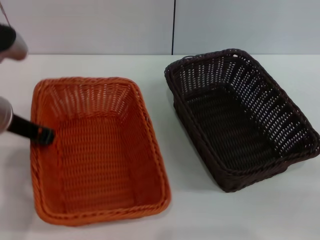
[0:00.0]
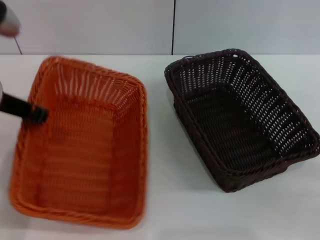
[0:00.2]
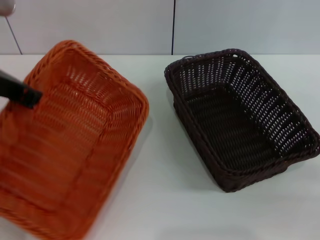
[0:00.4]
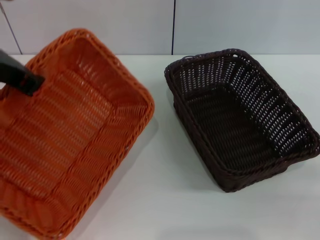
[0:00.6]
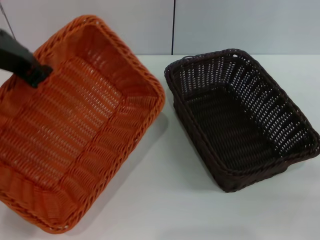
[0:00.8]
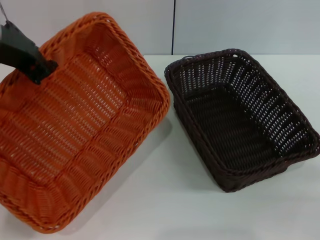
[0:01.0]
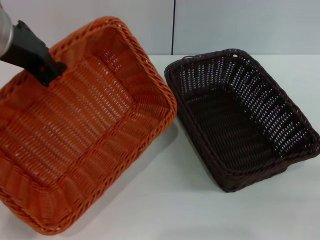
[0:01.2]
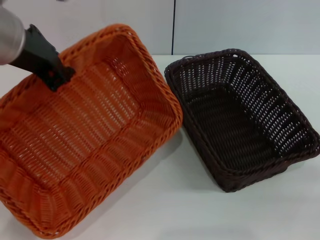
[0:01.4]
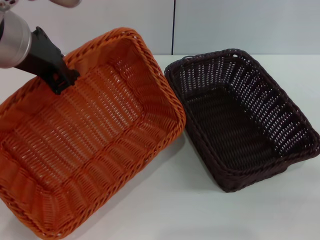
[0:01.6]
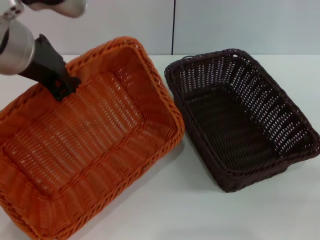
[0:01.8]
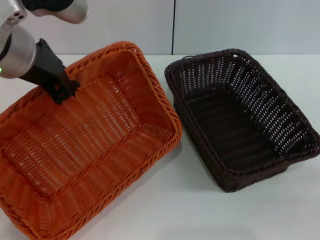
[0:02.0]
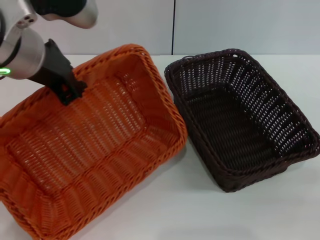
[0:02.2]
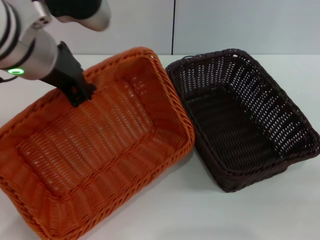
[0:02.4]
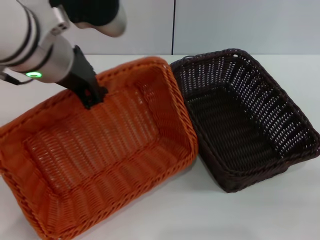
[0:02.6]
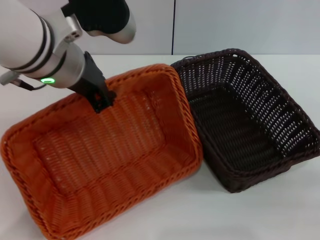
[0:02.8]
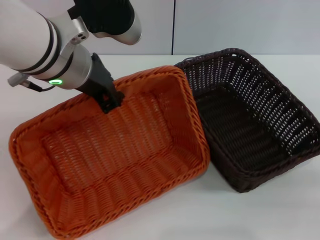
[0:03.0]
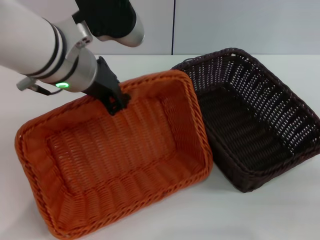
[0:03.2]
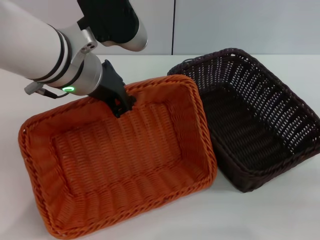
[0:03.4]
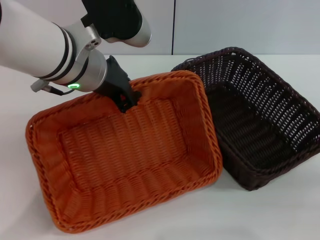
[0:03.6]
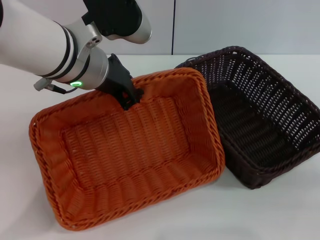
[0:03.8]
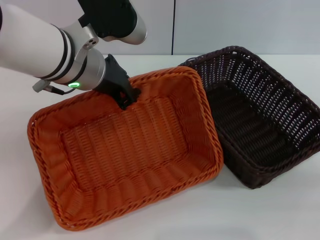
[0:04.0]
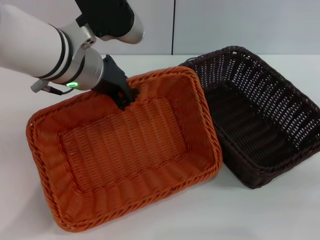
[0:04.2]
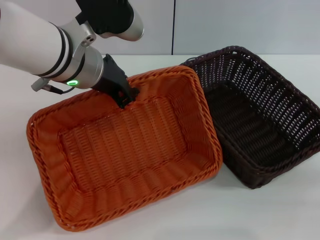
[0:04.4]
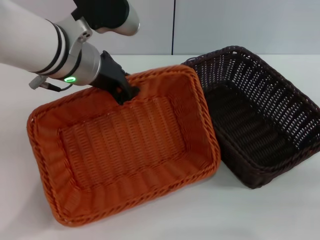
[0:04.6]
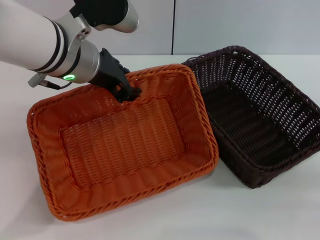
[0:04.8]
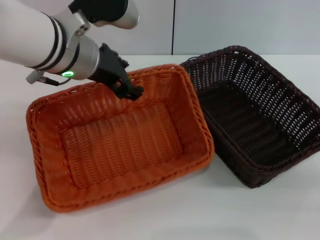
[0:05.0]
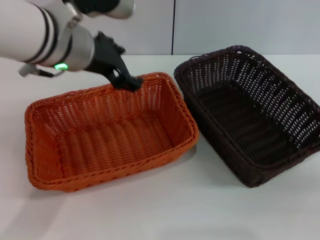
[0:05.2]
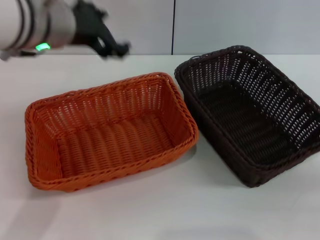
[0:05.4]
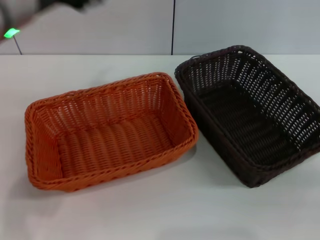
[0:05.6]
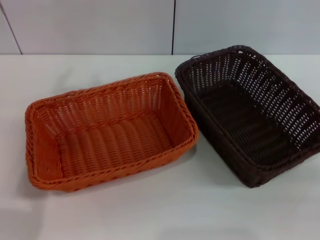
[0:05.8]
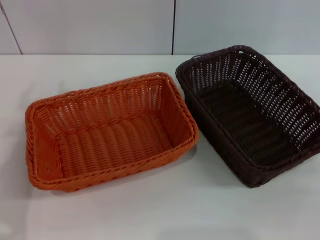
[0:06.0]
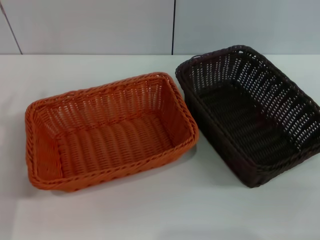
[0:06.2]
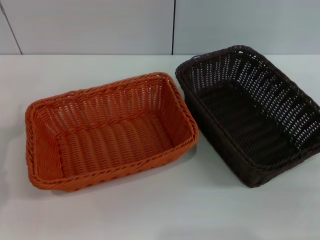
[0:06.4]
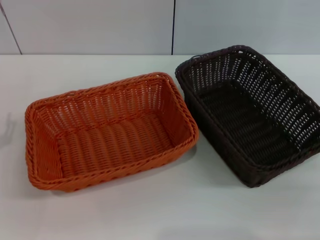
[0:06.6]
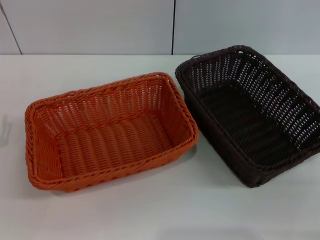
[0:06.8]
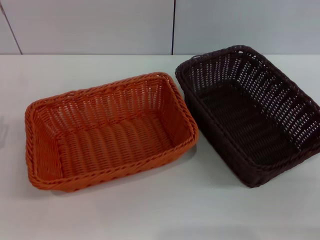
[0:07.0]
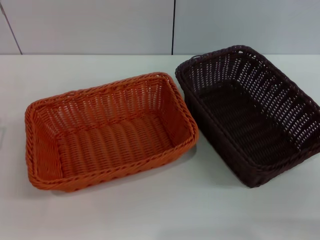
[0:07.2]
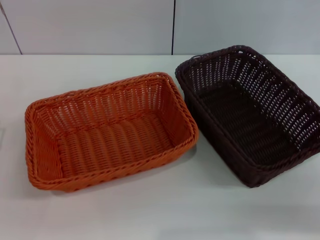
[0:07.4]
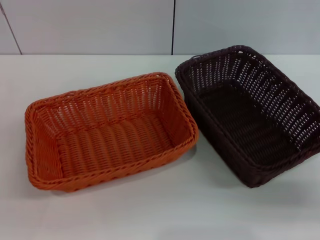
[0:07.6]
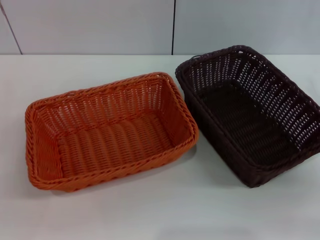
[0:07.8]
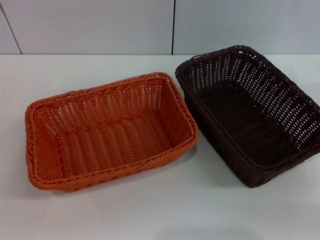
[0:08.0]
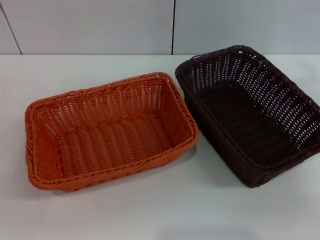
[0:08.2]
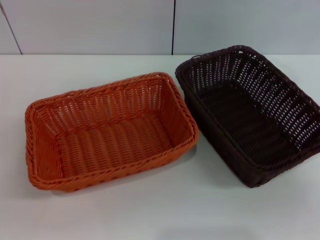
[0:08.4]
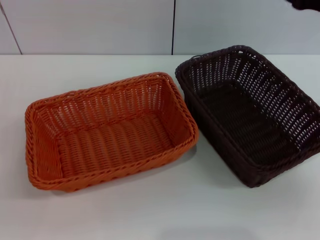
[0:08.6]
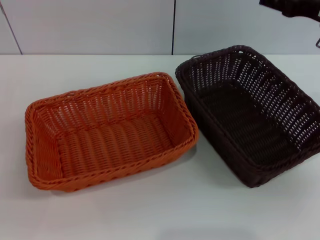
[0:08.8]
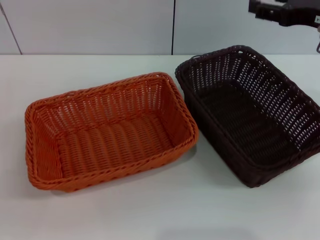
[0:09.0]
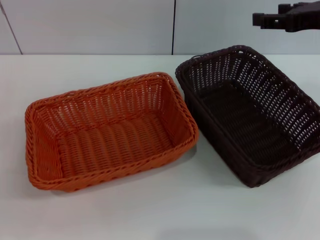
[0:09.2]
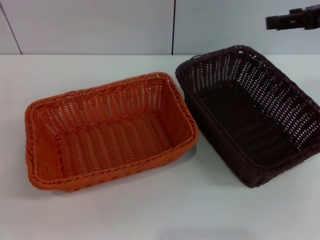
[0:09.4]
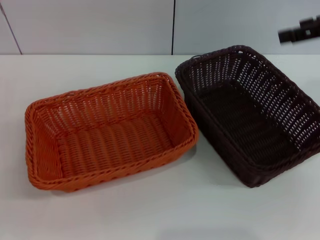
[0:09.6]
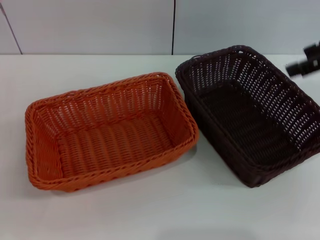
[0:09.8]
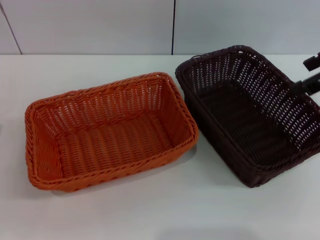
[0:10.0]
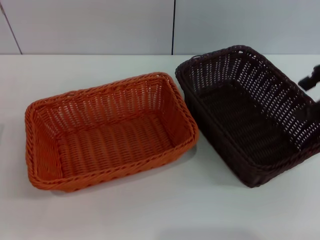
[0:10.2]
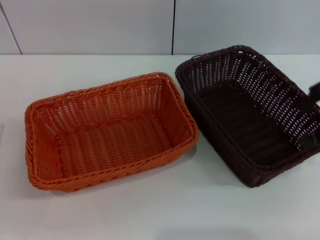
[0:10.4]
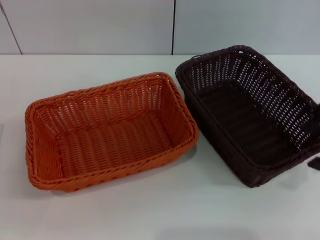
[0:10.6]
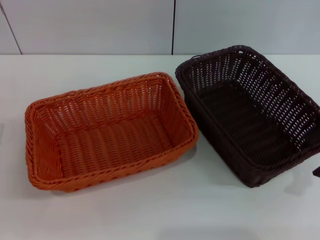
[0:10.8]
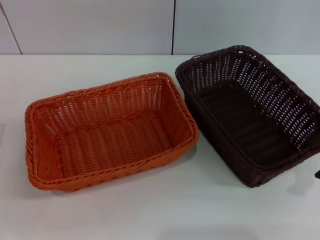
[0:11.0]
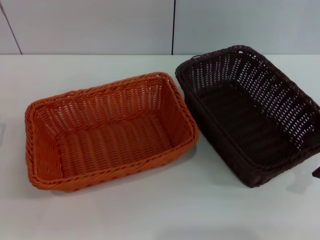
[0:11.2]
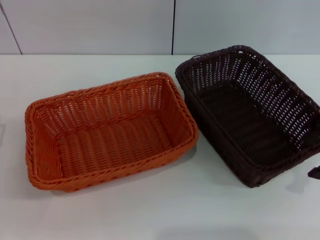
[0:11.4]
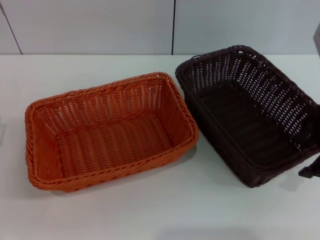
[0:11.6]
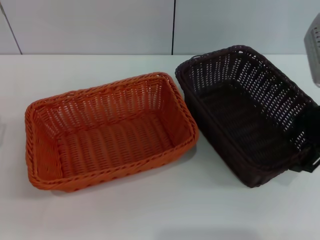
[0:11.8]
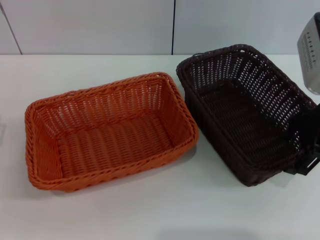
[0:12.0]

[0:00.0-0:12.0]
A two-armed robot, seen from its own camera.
Step, 0:00.6 to 0:05.0: Place the light basket in the center of view with the left gripper.
0:00.0 to 0:01.6: The left gripper goes some 10 cm upward and to the right.
0:01.6 to 0:03.0: The left gripper shifts by about 5 cm.
0:03.0 to 0:04.4: The grippers move only a little.
0:04.4 to 0:06.0: The left gripper shifts approximately 15 cm to the left and backward, and opens its fingers.
0:06.0 to 0:07.6: The right gripper is displaced forward by some 10 cm.
0:07.6 to 0:09.0: The right gripper heads upward, forward and to the left, covering about 15 cm.
0:09.0 to 0:10.4: The right gripper moves upward, some 5 cm.
0:10.4 to 0:12.0: The right gripper heads downward, covering some 5 cm.

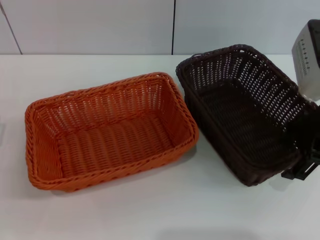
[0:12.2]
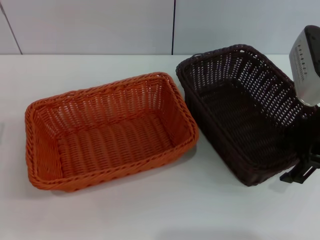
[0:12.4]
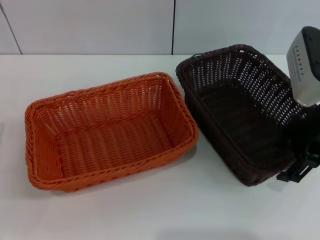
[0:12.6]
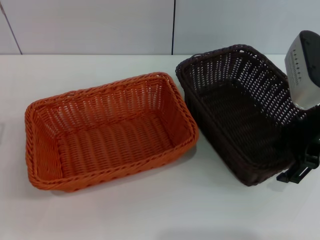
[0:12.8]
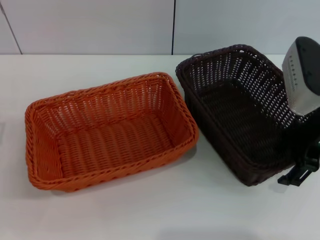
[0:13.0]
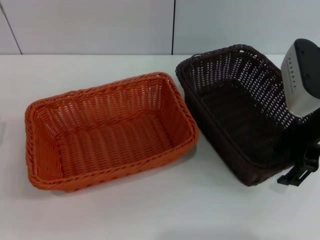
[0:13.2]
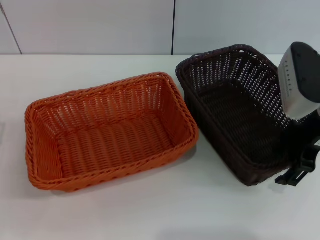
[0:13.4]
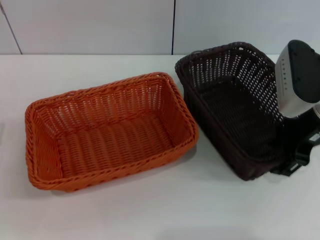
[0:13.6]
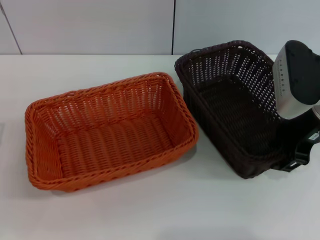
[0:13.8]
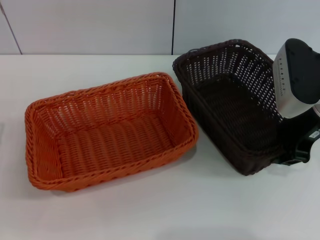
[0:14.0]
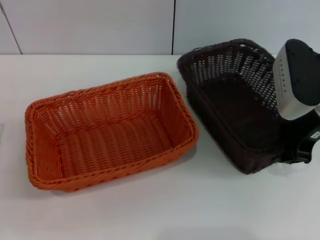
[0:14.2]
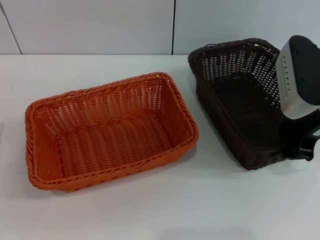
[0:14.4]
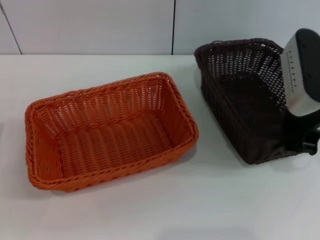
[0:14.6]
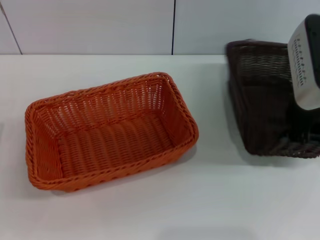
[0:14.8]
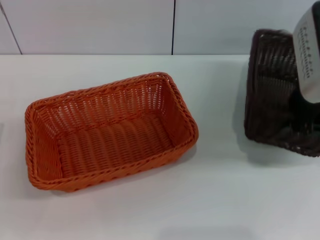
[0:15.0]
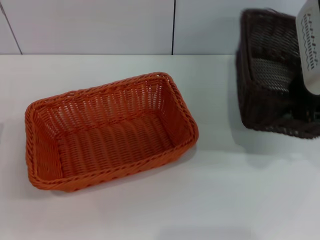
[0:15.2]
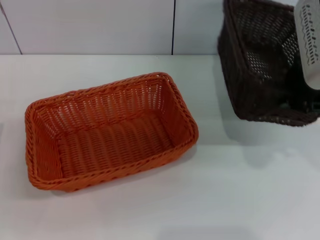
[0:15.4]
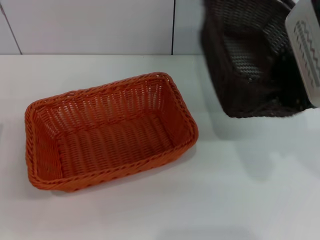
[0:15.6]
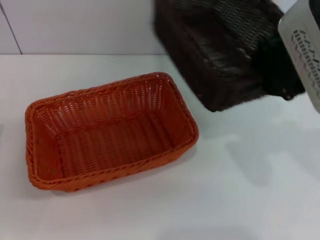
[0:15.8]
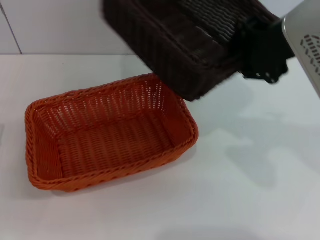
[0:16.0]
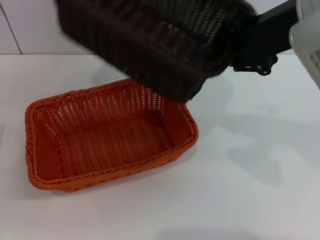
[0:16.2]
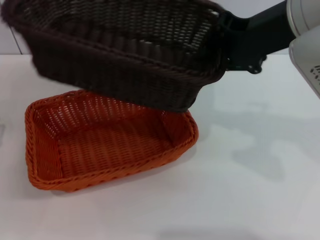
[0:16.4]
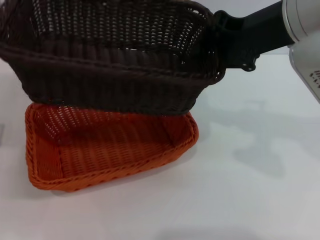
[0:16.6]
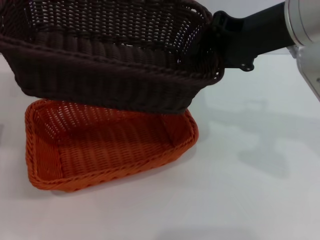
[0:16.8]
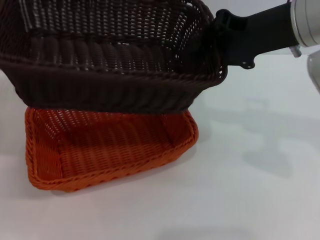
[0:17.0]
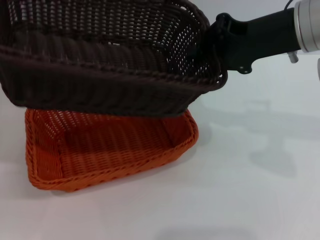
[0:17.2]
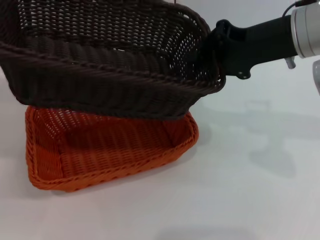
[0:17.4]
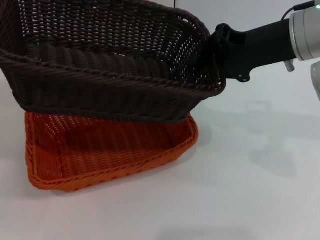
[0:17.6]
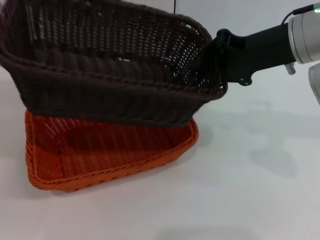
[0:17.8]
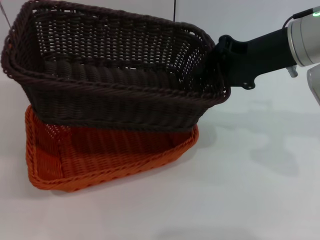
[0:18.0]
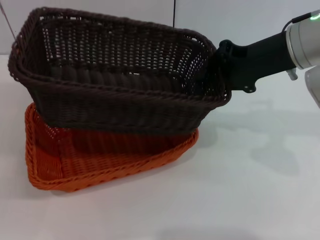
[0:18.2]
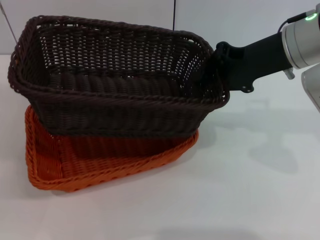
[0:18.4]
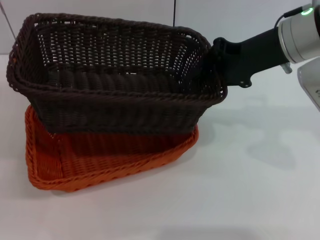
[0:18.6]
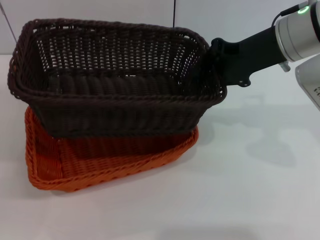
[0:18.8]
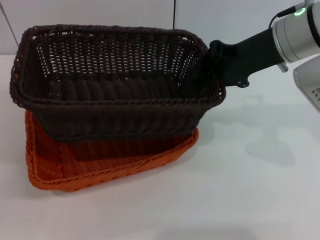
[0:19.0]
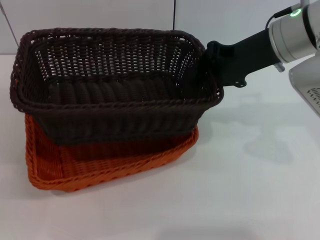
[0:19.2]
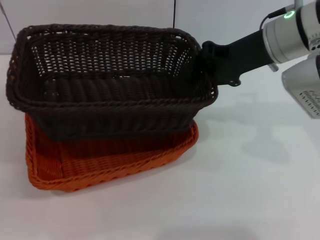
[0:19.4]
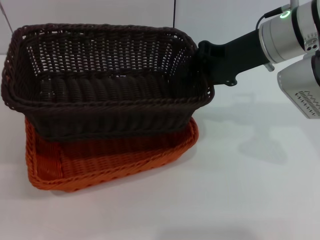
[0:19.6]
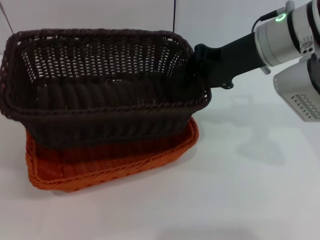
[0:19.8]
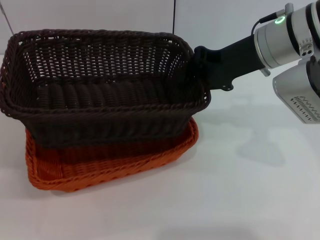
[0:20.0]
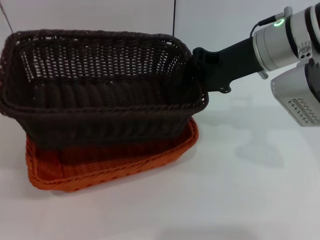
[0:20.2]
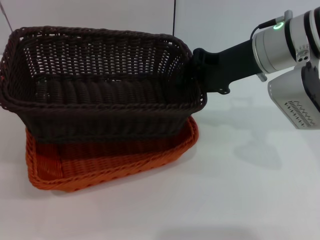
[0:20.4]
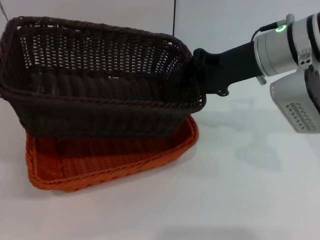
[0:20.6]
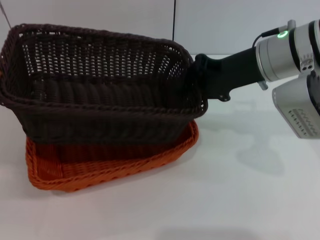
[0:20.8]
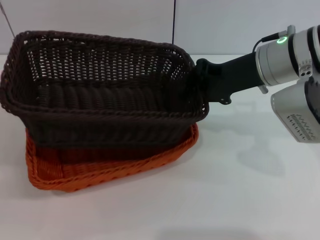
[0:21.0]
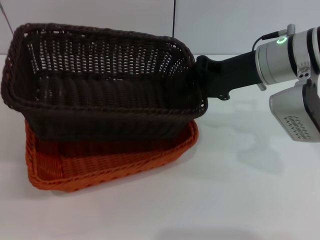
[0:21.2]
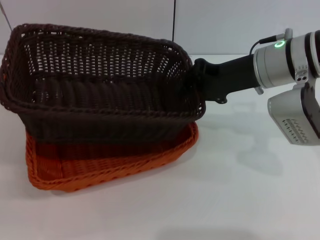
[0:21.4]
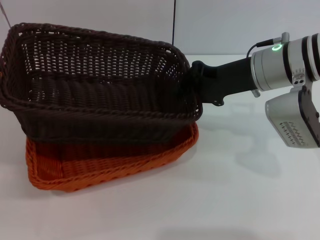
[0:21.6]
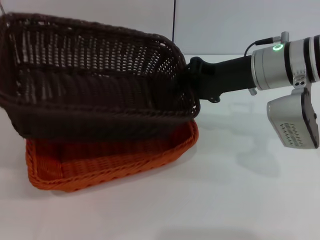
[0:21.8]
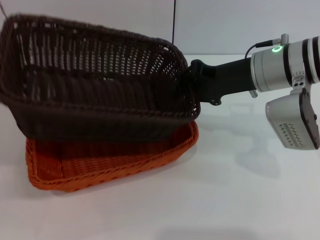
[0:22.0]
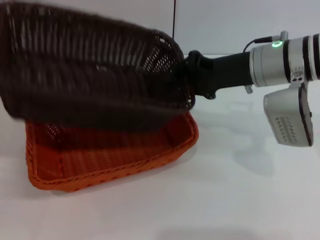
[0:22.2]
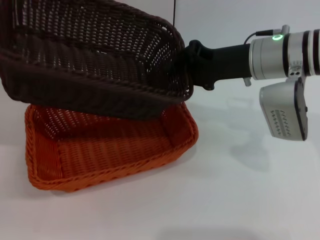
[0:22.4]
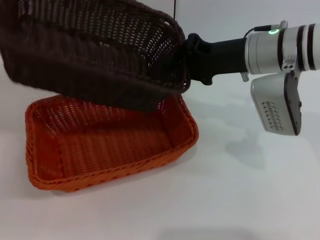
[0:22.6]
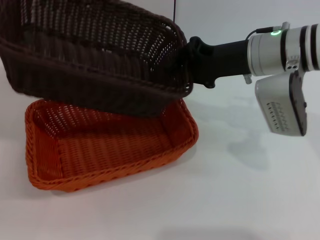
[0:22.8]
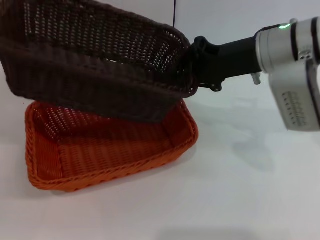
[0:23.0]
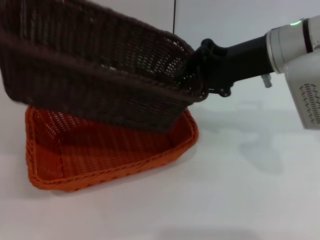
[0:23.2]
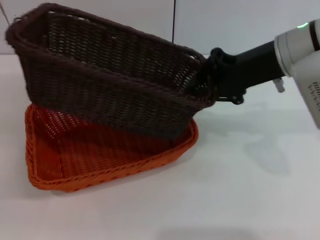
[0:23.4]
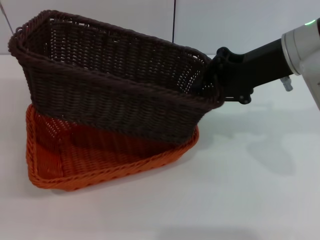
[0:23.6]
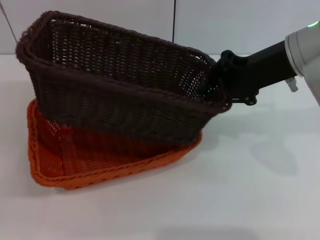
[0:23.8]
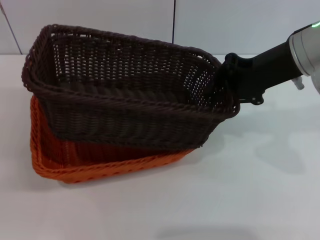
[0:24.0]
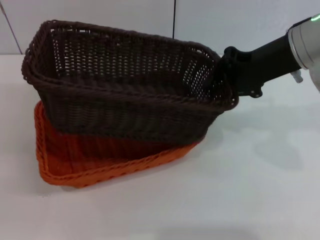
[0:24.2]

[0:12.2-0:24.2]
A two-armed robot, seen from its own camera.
Step, 0:12.2 to 0:14.6: Pick up the dark basket with the right gripper.
0:12.2 to 0:13.8: The grippers make only small movements.
0:13.8 to 0:15.2: The right gripper shifts some 10 cm upward, and closes.
0:15.2 to 0:16.6: The right gripper ends up roughly 5 cm from where it was.
0:16.6 to 0:18.2: The right gripper shifts about 5 cm downward.
0:18.2 to 0:21.2: There are only small adjustments of the grippers.
0:22.6 to 0:24.2: The right gripper moves approximately 5 cm.
